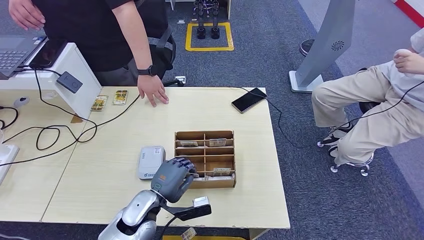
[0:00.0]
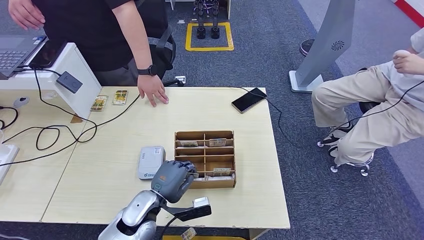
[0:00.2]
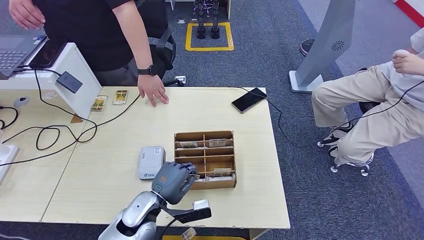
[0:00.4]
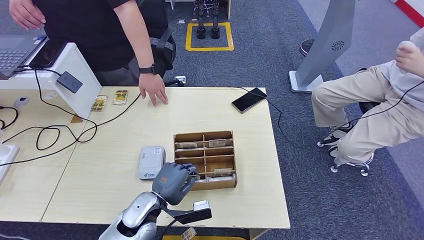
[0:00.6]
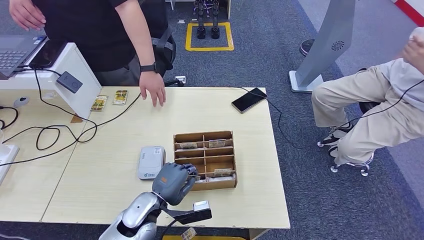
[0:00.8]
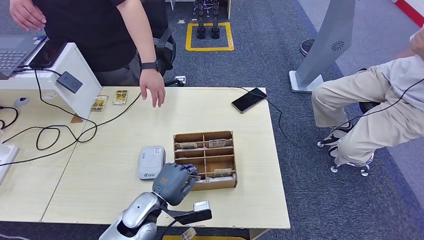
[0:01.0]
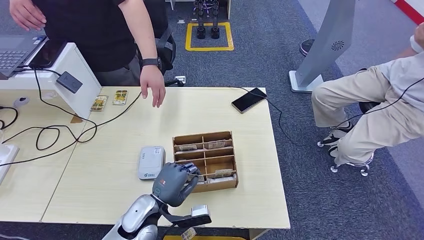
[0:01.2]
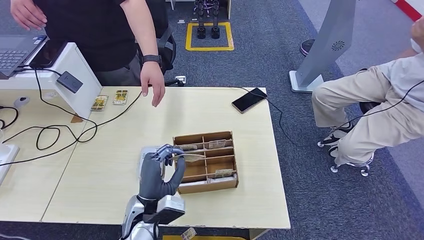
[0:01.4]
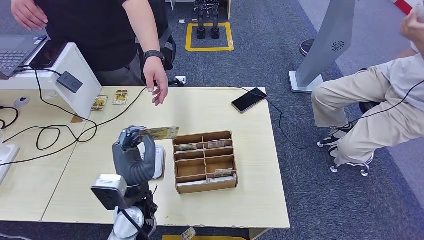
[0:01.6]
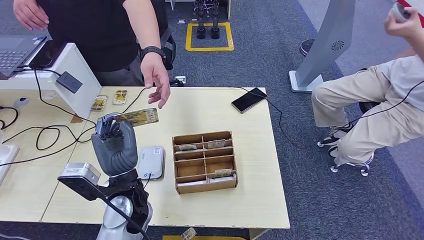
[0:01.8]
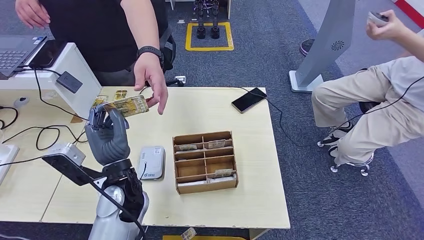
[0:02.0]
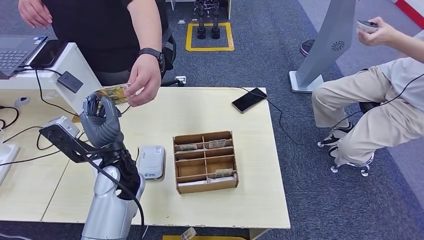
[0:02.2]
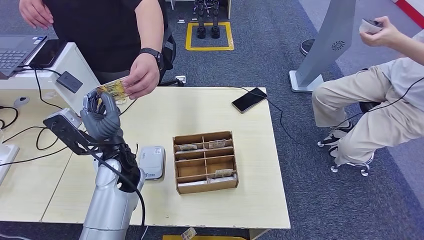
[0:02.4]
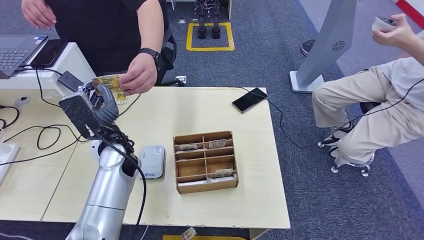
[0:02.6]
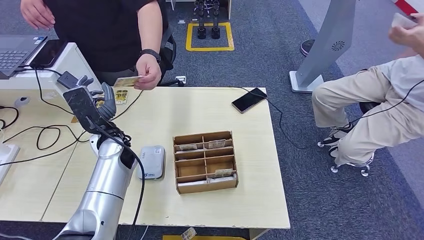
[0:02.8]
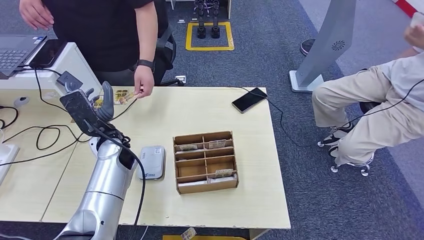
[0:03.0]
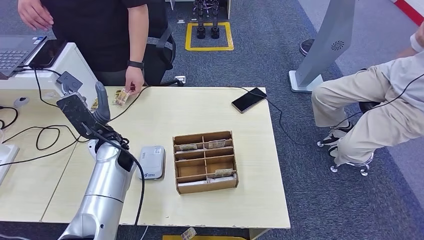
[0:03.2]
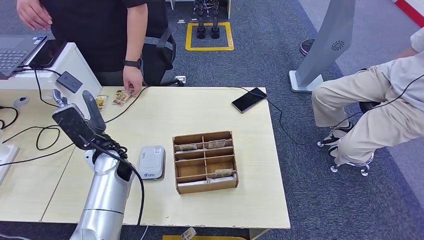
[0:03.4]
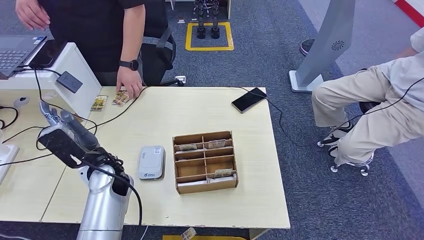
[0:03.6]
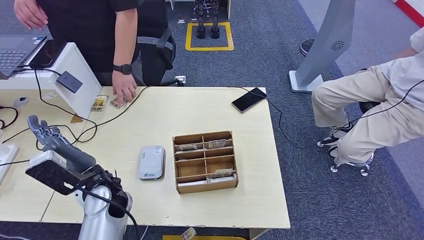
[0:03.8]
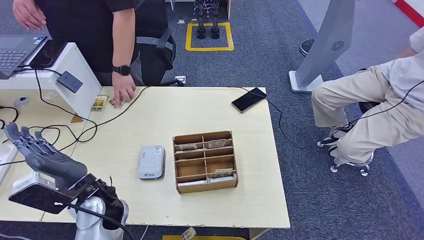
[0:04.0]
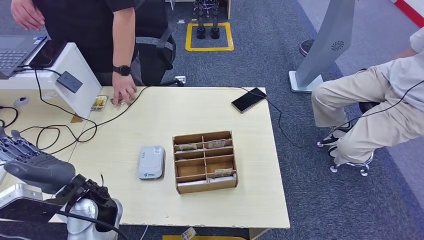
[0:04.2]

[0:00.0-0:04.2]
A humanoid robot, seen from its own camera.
Step, 0:00.8 to 0:04.2: Hand the room key to the person.
0:01.4 to 0:02.8: The left hand goes some 20 cm forward, upward and to the left.
0:02.8 to 0:04.2: The left hand goes roughly 15 cm backward.

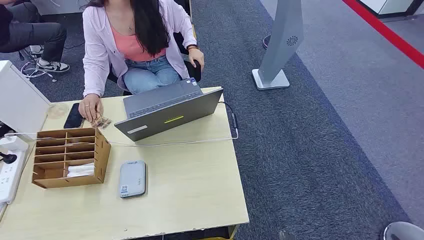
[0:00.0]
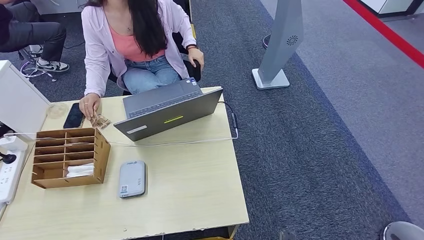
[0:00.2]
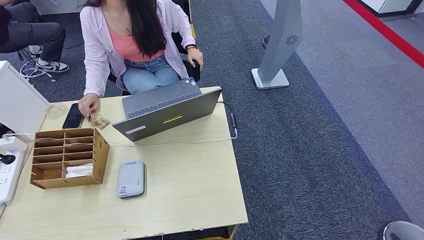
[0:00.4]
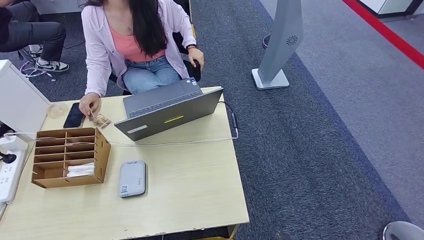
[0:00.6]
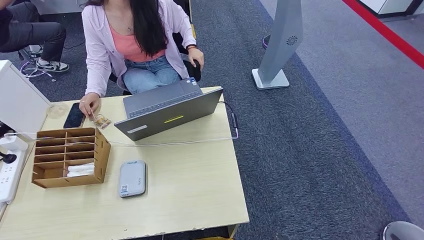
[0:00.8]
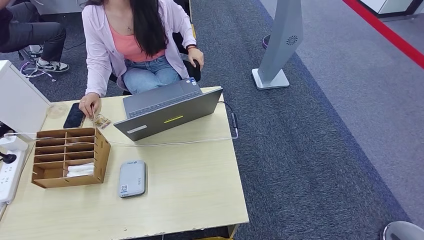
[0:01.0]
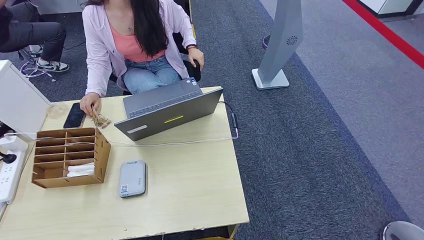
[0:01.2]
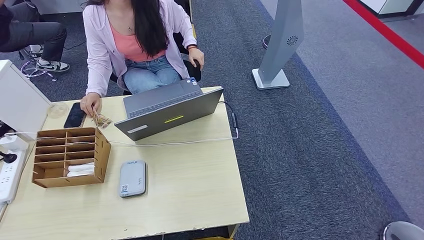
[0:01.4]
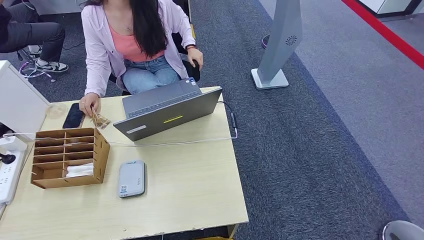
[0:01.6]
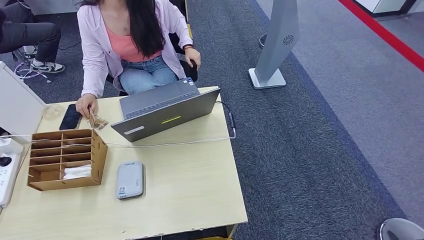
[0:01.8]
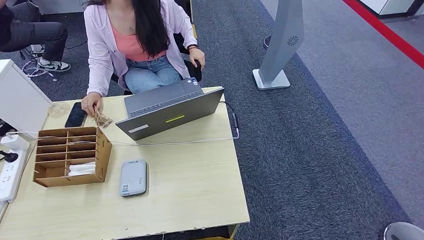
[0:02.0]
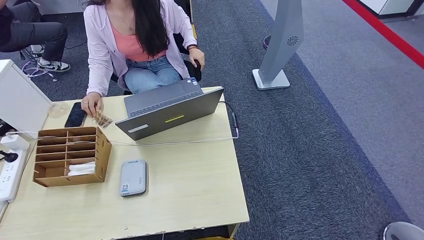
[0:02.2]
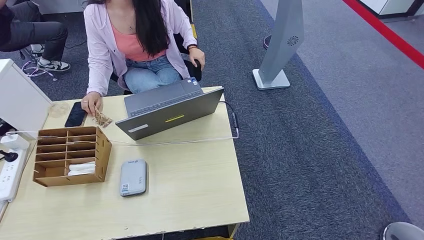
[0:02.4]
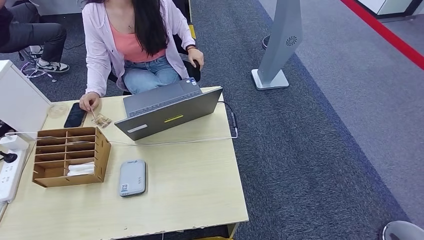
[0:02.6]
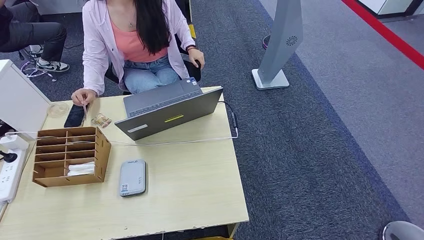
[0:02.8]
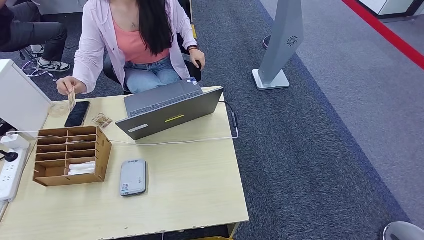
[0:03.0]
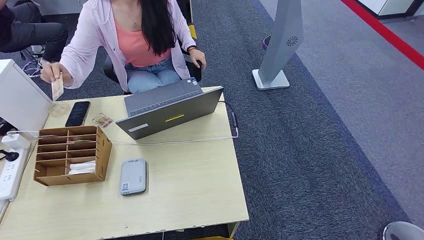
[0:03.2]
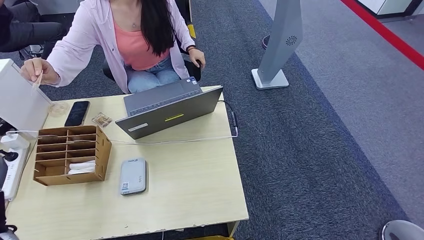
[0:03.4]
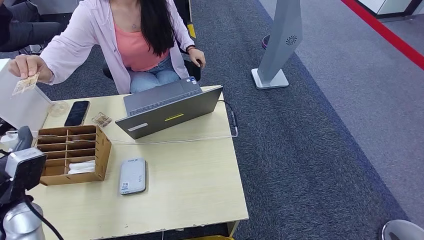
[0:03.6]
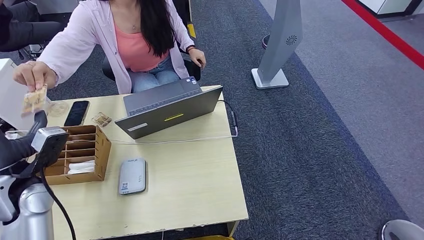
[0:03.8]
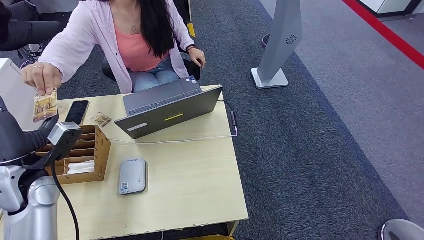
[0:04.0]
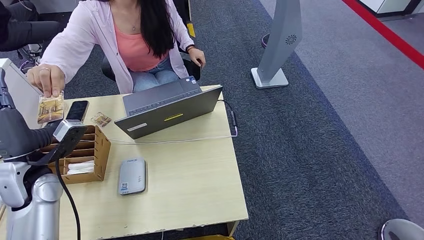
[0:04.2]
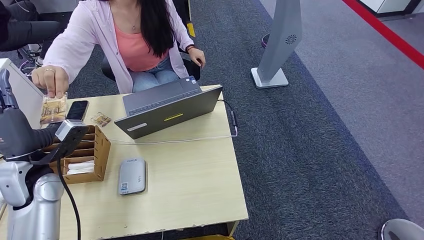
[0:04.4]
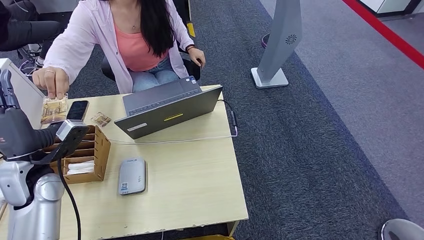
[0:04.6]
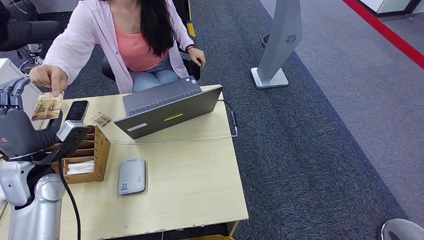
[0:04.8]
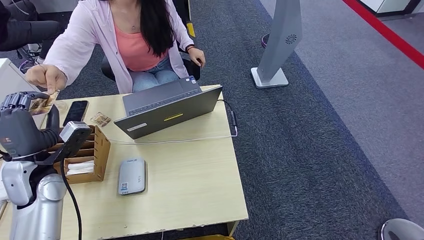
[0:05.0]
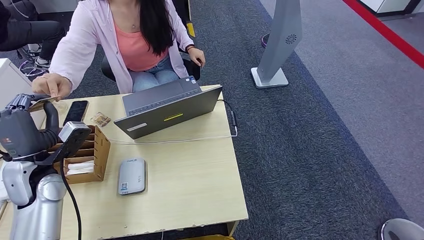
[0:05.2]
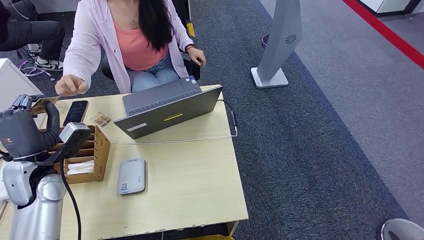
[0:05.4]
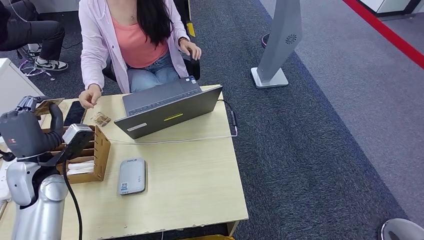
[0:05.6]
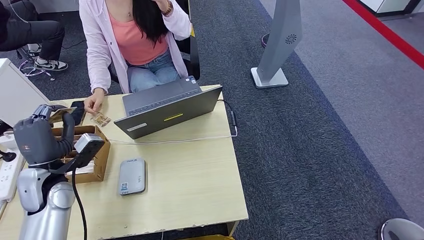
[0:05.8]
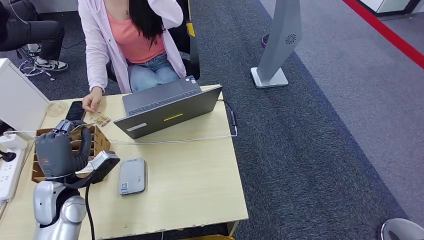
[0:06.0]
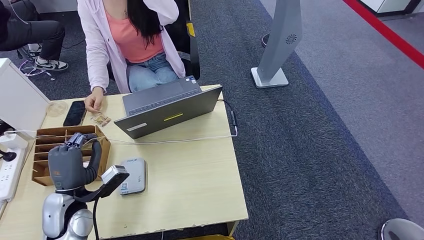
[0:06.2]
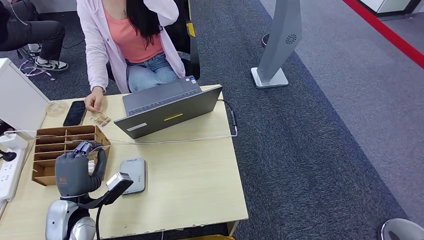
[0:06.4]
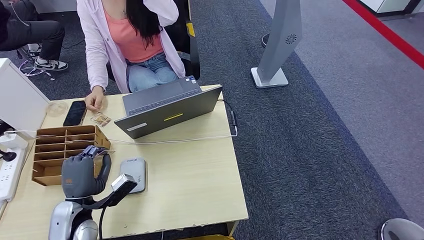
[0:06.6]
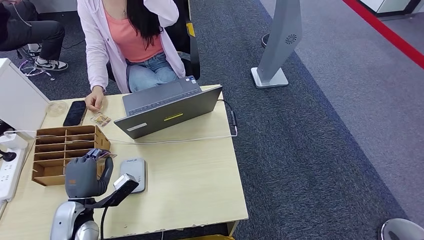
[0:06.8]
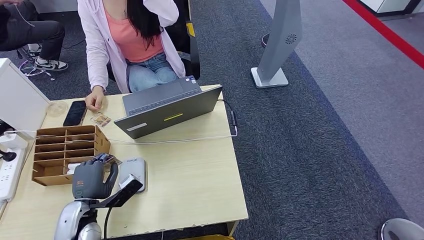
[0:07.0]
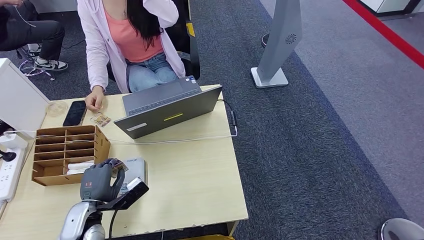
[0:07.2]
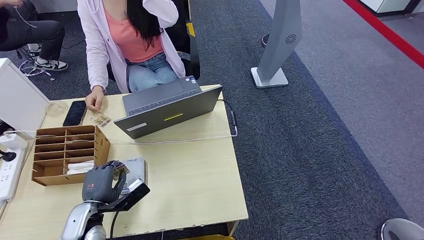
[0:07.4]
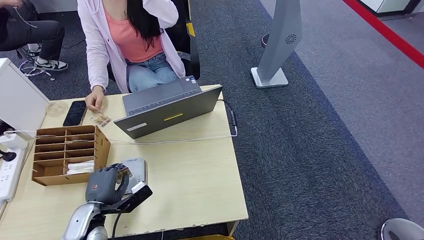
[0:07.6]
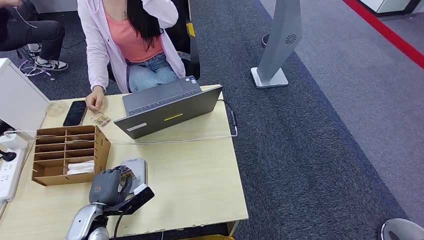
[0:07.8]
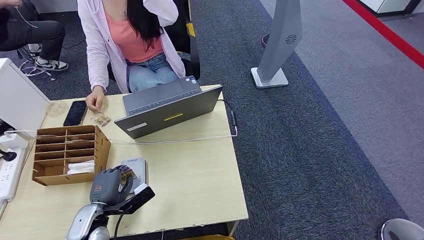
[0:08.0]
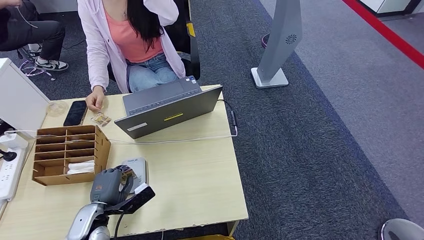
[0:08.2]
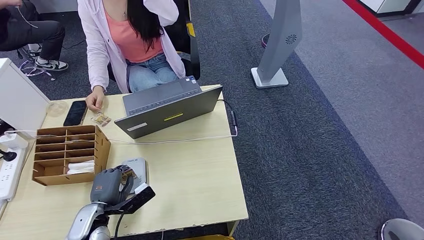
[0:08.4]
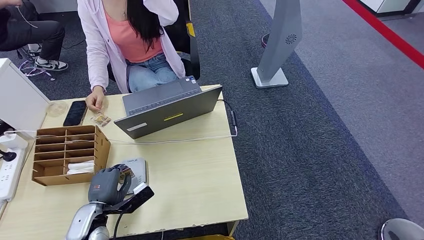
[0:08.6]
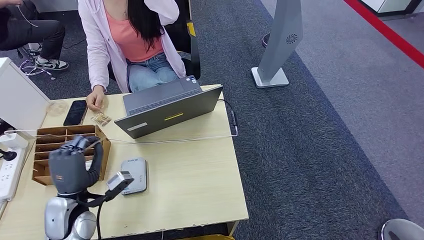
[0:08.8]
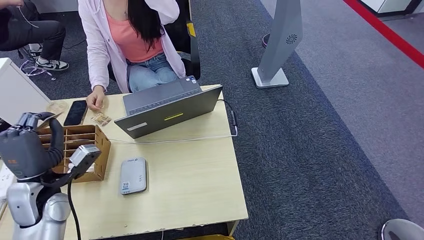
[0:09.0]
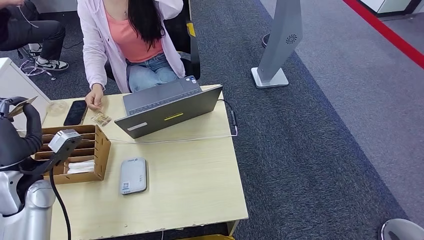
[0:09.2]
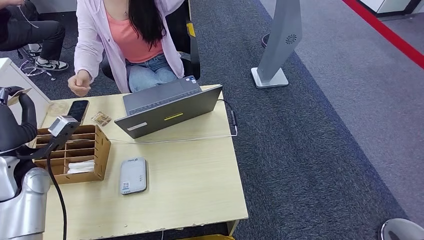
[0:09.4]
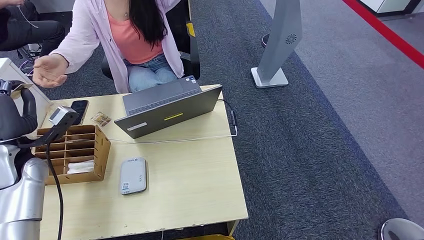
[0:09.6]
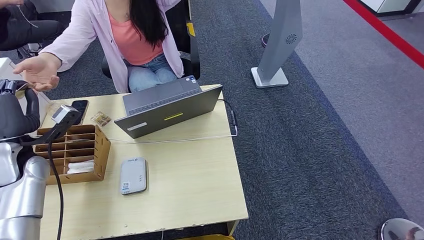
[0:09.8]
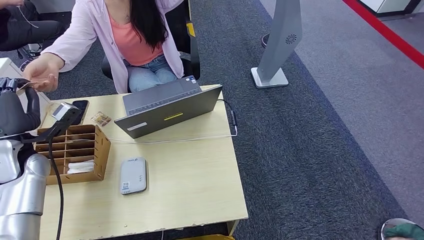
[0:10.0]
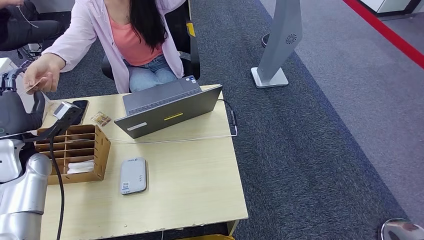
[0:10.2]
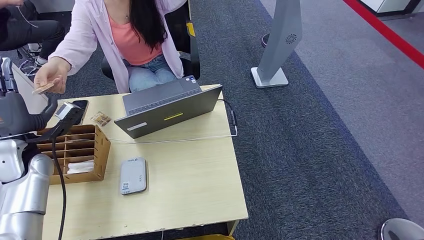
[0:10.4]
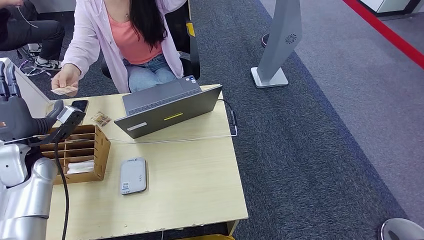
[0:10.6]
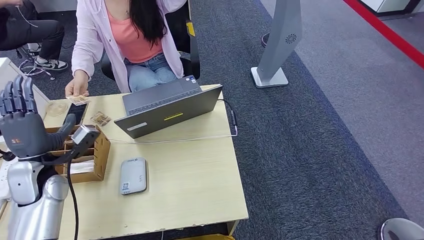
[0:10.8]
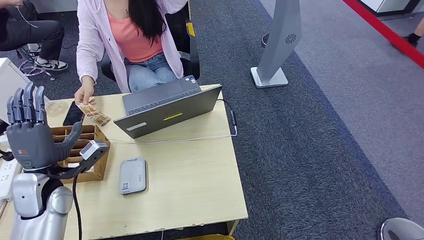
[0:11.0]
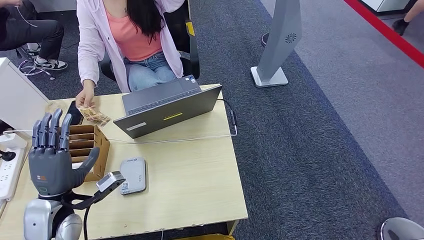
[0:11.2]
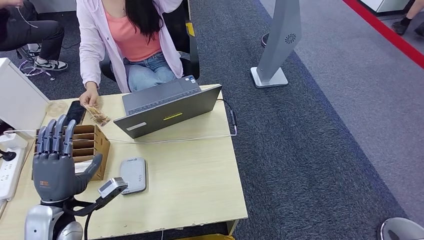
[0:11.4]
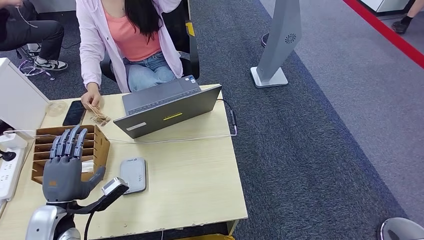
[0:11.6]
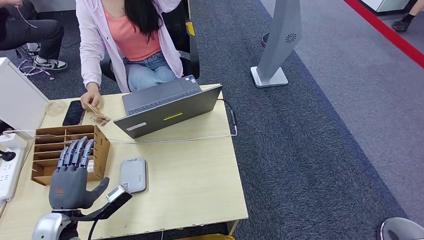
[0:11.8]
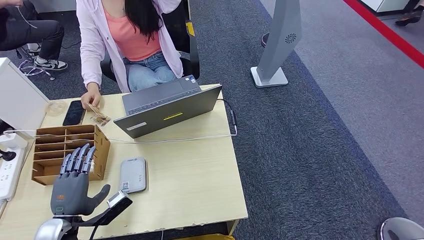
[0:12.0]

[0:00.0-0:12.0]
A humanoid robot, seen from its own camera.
Step, 0:00.0 to 0:06.8: Take the ID card from the person's hand.
Step, 0:07.0 to 0:07.6: Place the ID card on the card reader.
Step, 0:07.8 to 0:11.0: Hand the ID card to the person.
0:01.6 to 0:03.0: The left hand goes about 20 cm upward.
0:04.4 to 0:06.0: The left hand is displaced downward by roughly 5 cm.
0:06.0 to 0:07.6: The left hand heads downward and backward, covering about 10 cm.
0:07.6 to 0:09.0: The left hand is displaced upward, to the left and forward by some 15 cm.
0:09.0 to 0:10.4: The left hand travels forward and to the left by about 10 cm.
0:10.4 to 0:12.0: The left hand moves backward, downward and to the right, some 20 cm.
